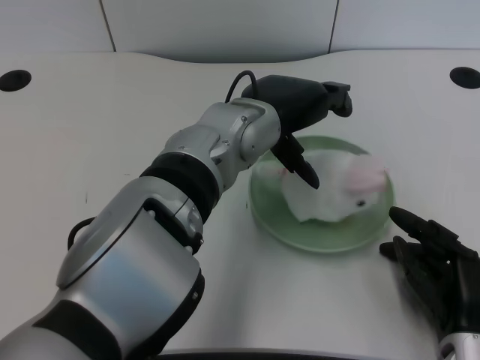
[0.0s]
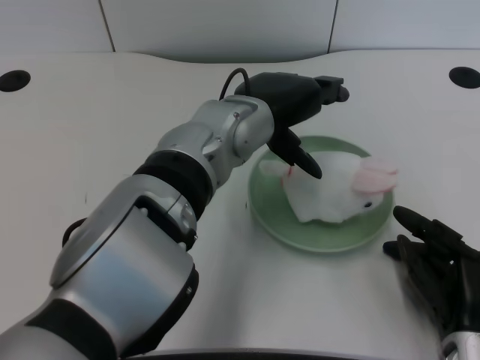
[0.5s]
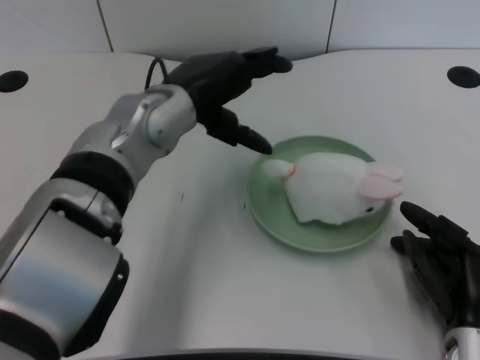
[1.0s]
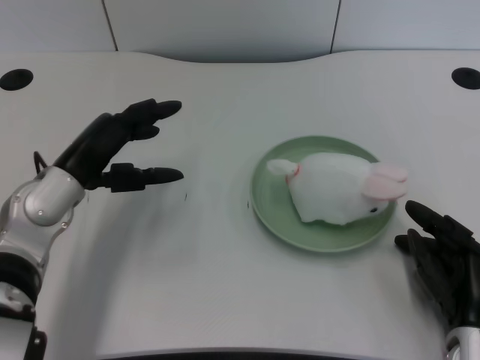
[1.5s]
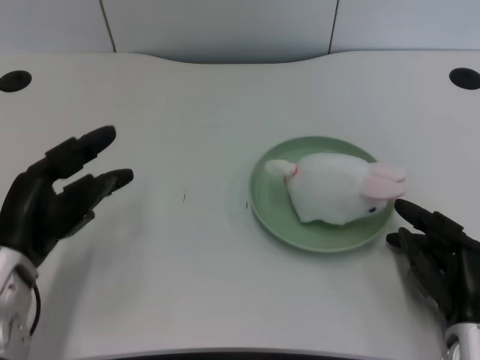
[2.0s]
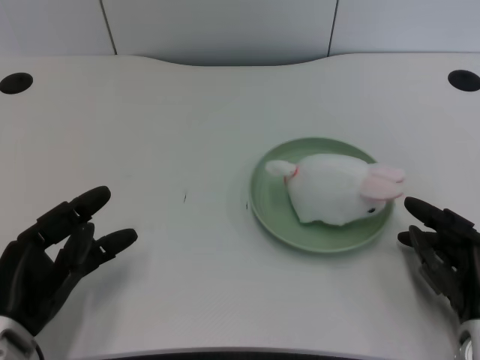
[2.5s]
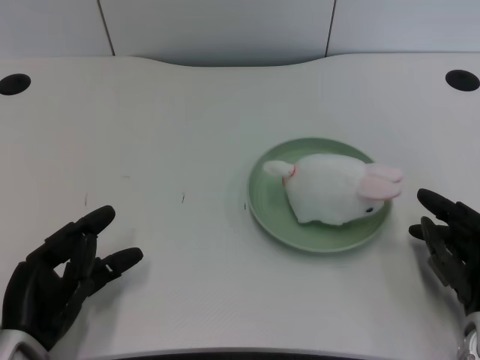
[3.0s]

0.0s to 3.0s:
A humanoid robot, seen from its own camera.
Task of the whole recording: pick up the rabbit doll from the table and place it on the plate.
0.0s to 1.5s: The left hand shifts roughly 20 cm to the left.
1.5s to 3.0s: The left hand moves backward and downward, approximately 15 cm.

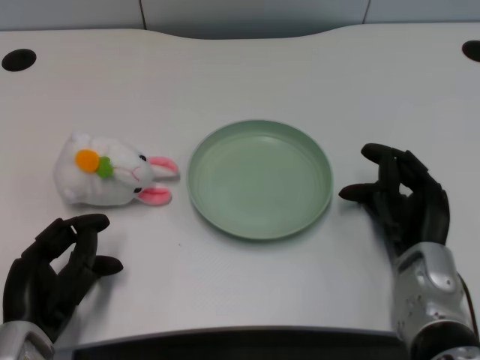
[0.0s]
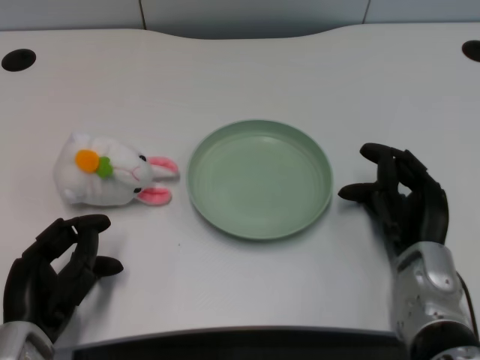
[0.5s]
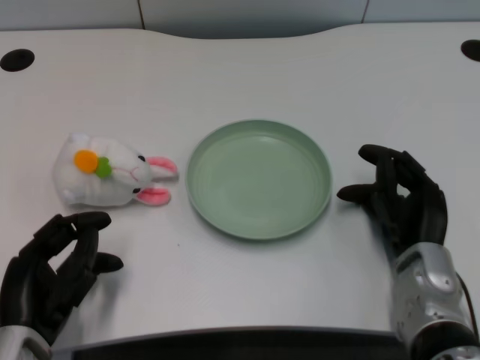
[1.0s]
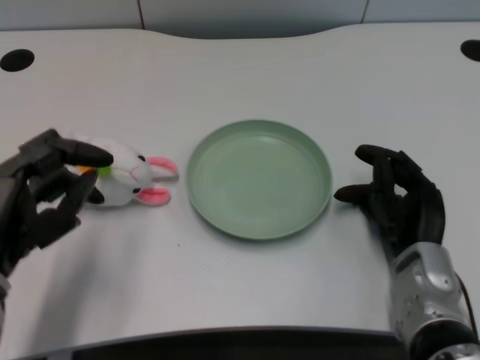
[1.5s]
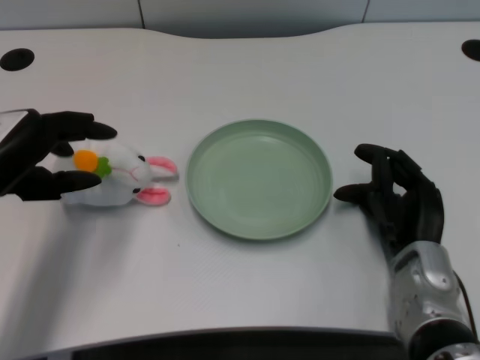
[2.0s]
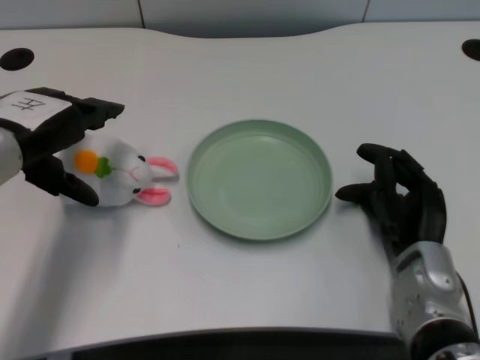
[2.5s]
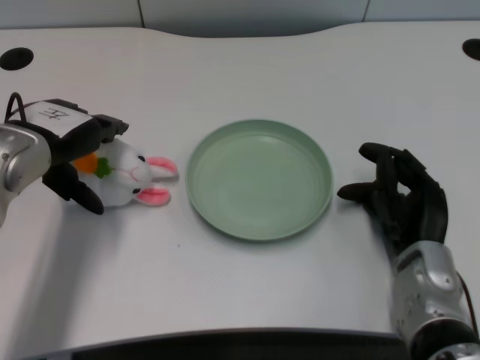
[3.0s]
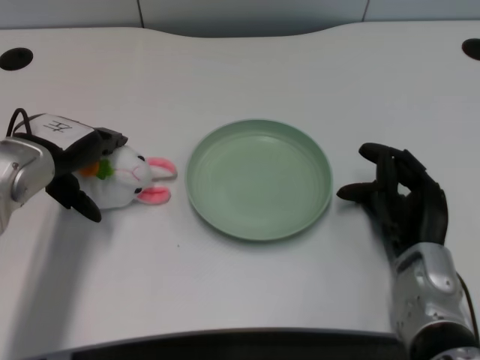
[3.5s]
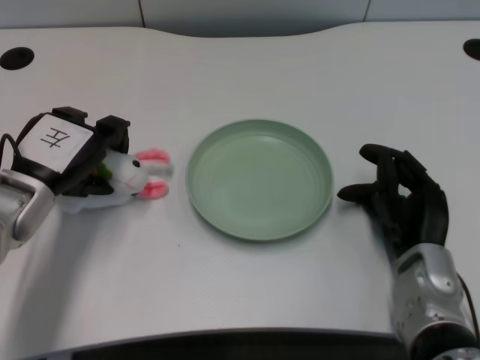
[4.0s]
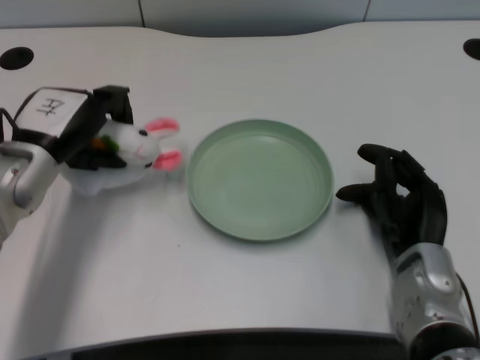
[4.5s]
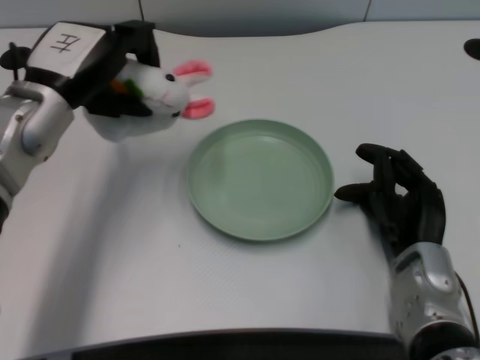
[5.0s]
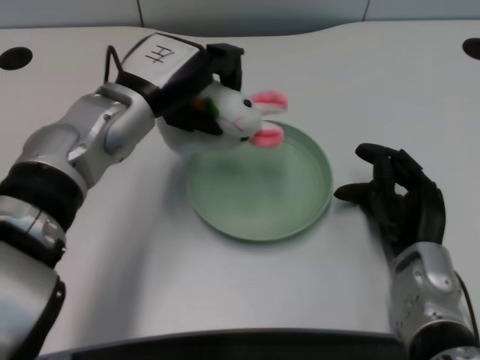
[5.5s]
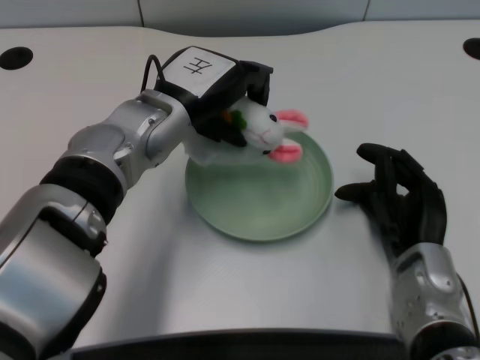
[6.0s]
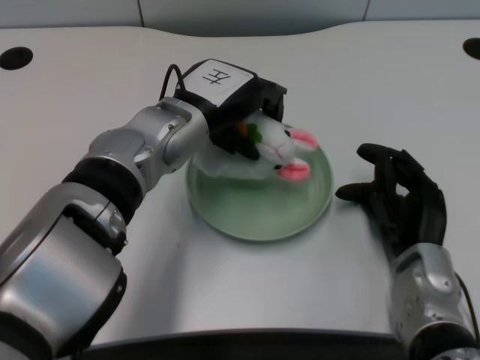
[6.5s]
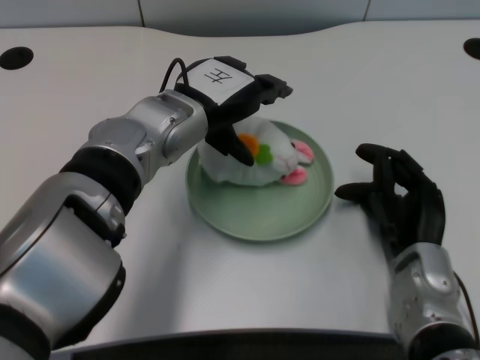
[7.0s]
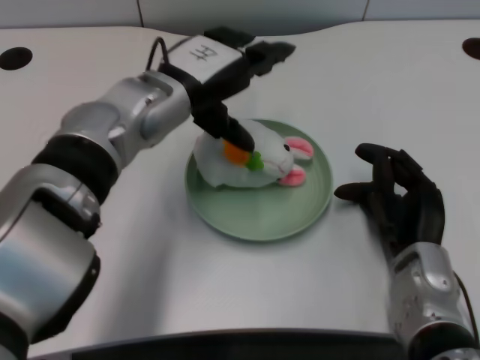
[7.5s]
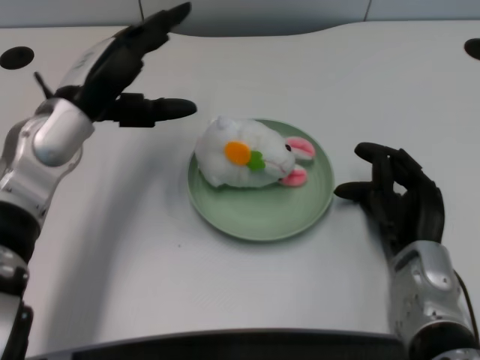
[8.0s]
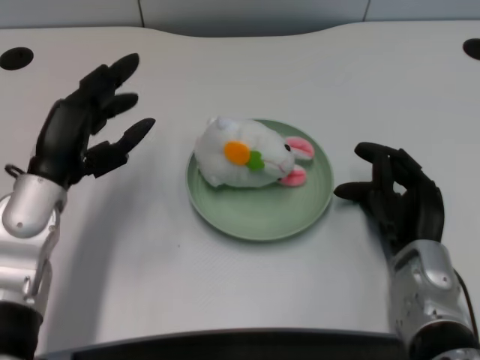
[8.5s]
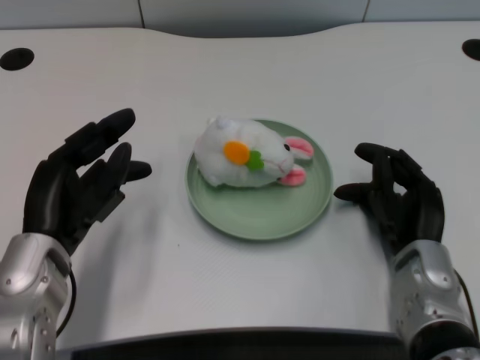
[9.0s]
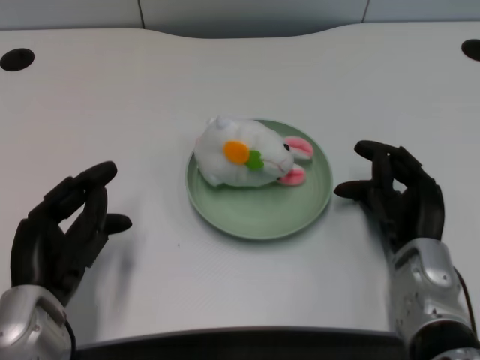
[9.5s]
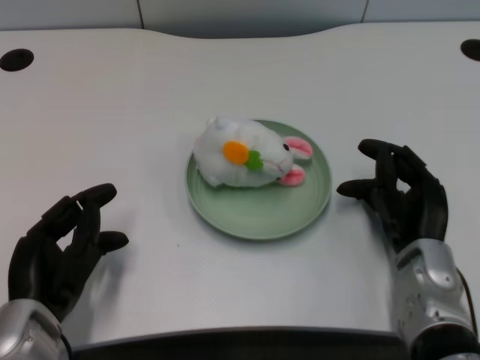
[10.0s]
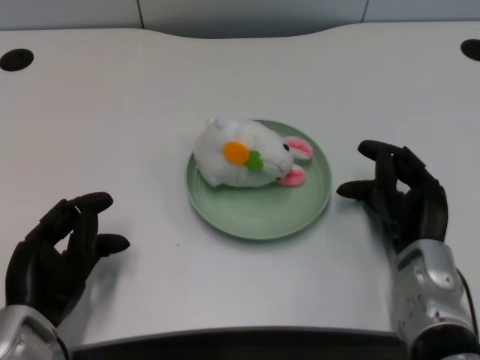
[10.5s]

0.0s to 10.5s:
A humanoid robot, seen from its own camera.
Task of the whole recording: pick up the rabbit doll from the table and place it on the plate.
Step, 1.0s to 4.0s: Grasp the rabbit doll with the left gripper.
Step, 4.5s to 7.0s: Place the rabbit doll into the plate with the left gripper.
2.0s to 4.0s: The left hand moves downward and forward, about 10 cm.
4.0s to 6.5s: The left hand is displaced to the right by about 15 cm.
6.5s to 8.5s: The left hand heads to the left and backward, covering roughly 15 cm.
8.5s to 10.5s: The left hand shifts some 10 cm backward and downward.
